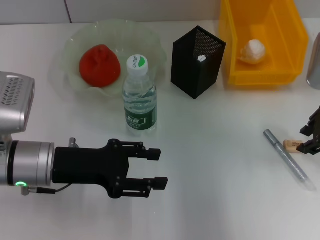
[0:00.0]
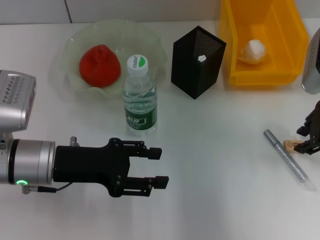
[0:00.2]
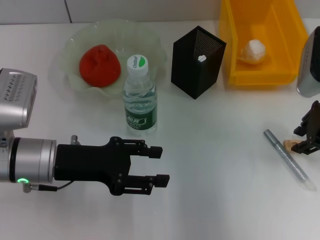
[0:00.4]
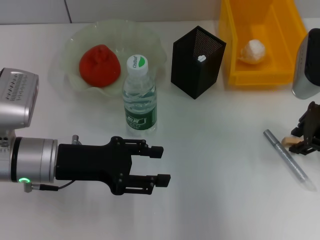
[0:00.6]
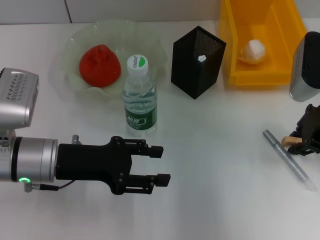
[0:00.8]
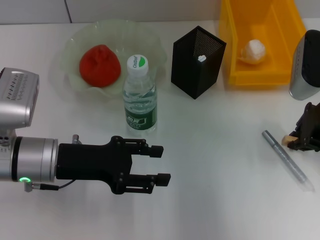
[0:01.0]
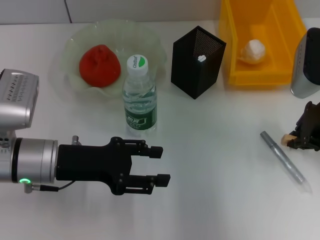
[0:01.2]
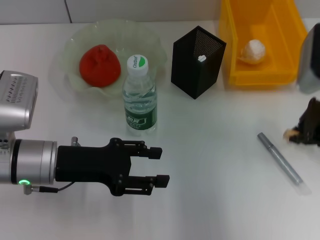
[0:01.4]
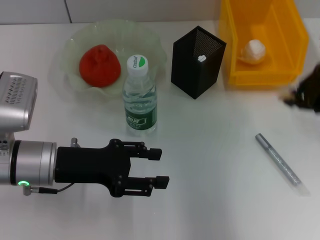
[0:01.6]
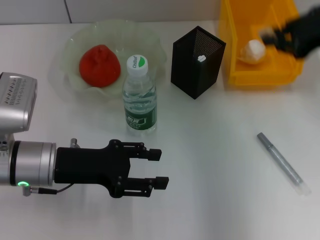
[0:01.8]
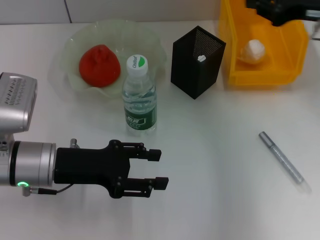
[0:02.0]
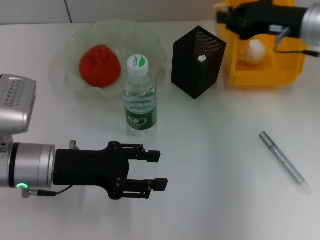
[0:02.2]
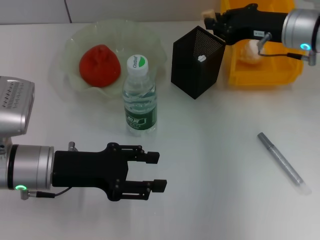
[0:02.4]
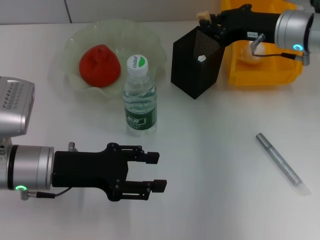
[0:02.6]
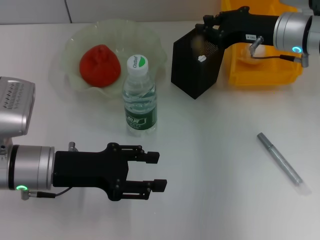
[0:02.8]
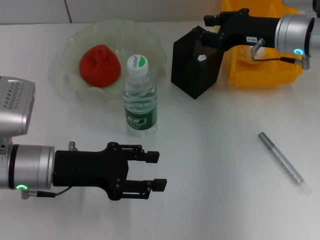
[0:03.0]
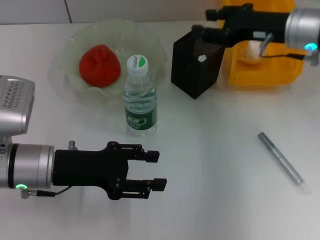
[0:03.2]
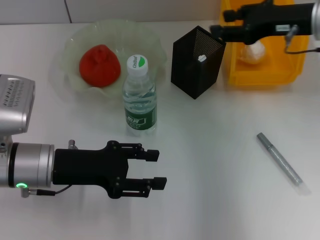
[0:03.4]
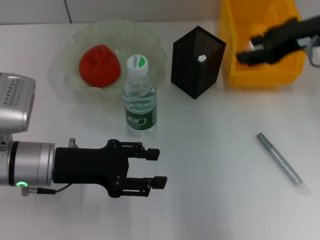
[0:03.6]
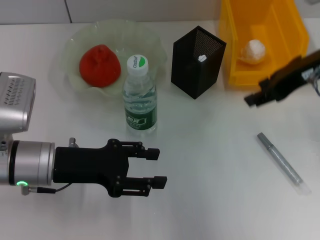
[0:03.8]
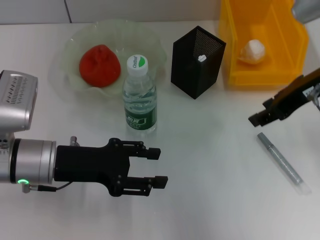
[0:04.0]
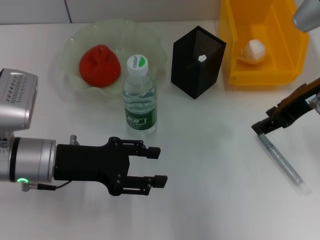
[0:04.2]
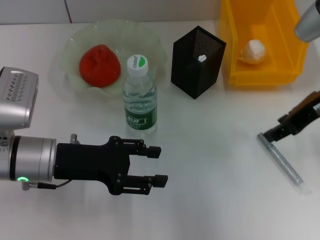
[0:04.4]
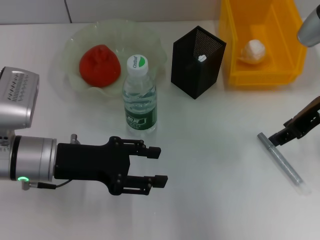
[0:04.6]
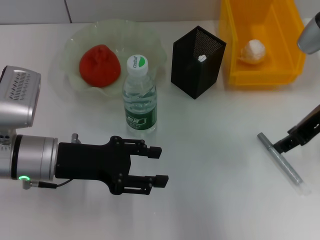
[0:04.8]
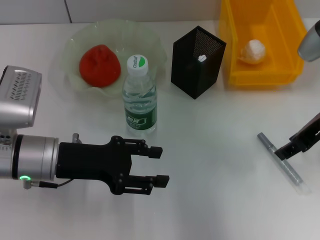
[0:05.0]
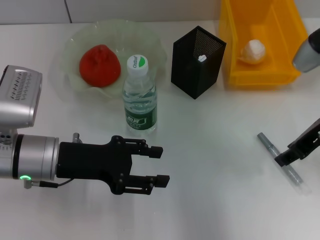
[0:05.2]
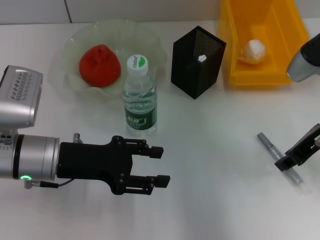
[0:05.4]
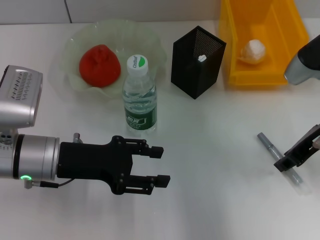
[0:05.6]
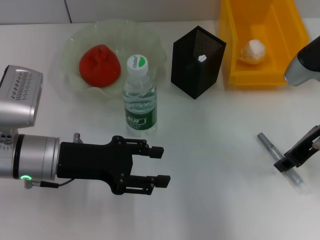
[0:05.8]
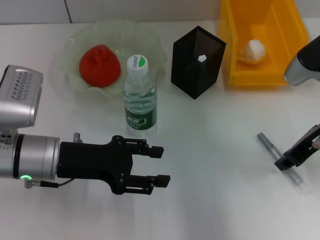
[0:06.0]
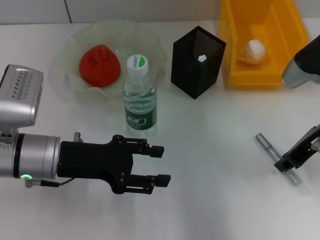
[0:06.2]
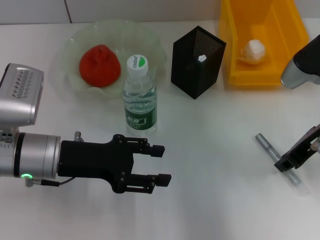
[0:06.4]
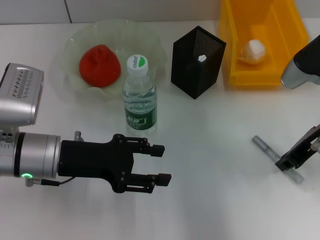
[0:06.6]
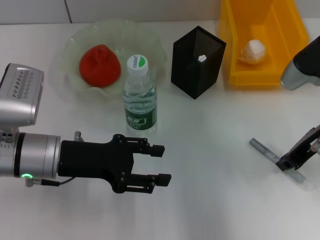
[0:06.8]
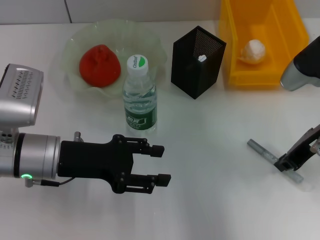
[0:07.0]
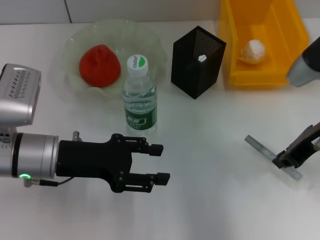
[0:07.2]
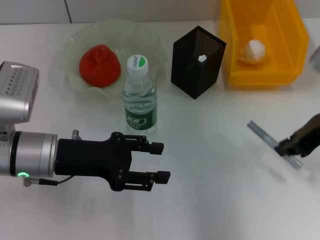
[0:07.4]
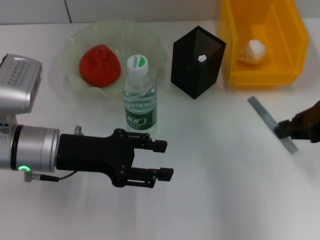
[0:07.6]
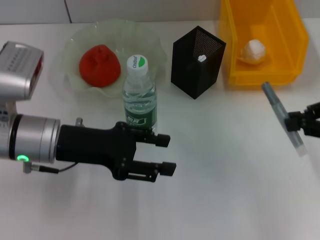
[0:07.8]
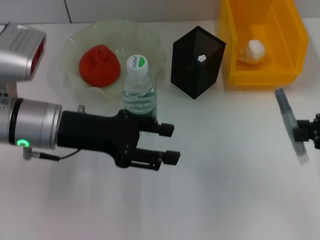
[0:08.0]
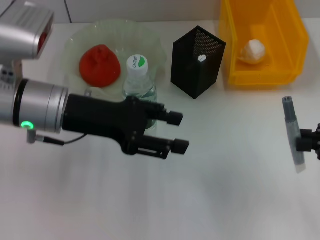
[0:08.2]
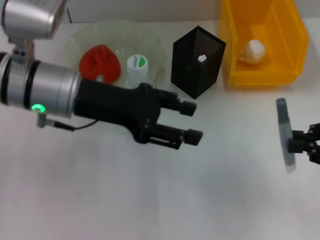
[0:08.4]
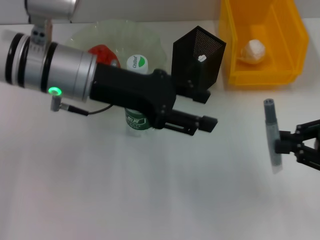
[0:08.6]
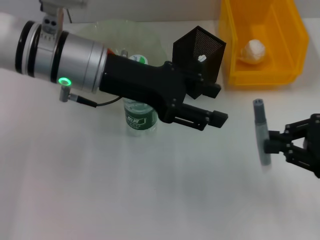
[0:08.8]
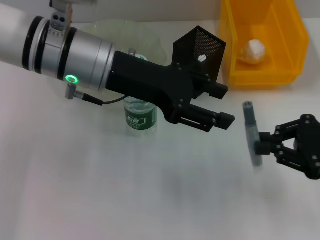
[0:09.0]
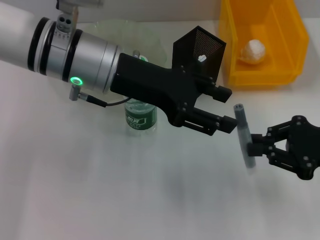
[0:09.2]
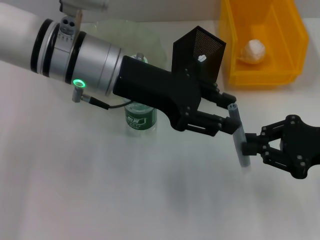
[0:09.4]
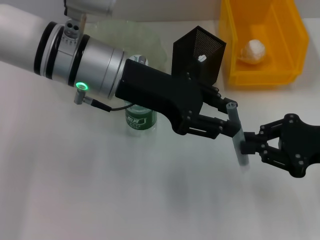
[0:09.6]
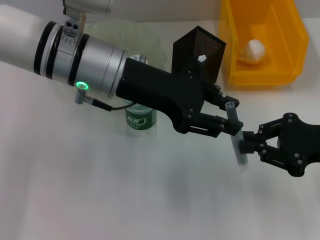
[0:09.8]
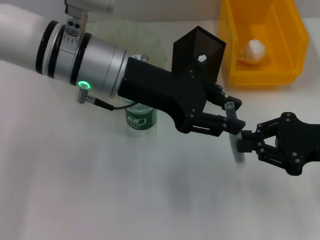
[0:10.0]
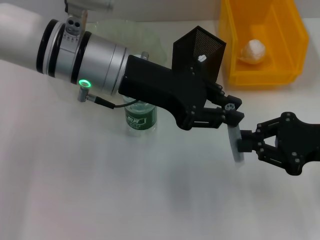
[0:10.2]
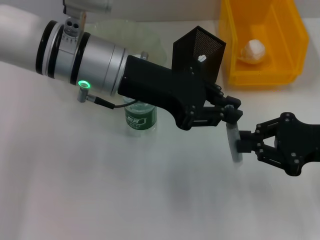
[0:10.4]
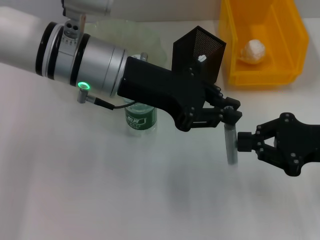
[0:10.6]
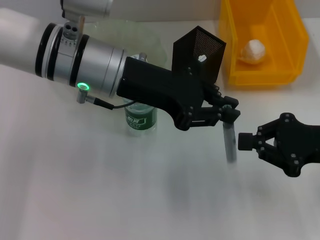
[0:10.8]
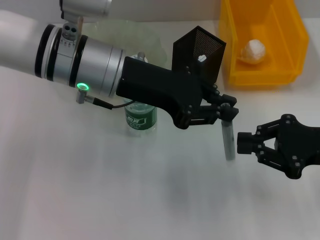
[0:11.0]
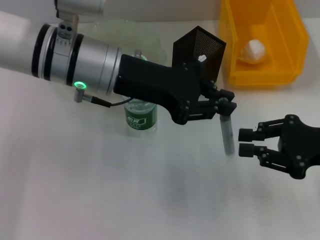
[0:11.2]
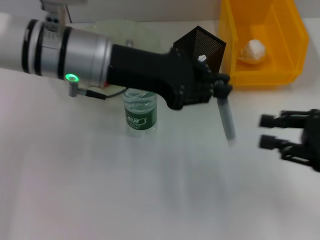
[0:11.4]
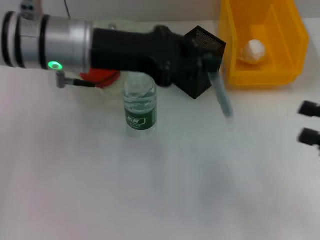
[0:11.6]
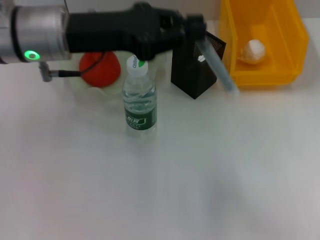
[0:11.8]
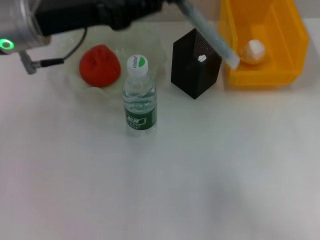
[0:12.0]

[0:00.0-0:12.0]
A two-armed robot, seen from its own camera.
Step, 0:01.2 to 0:03.0: Put the eraser into the pen holder with the right hand.
Step, 0:03.2 to 0:06.8: Grab the gray glue with the right hand.
Step, 0:07.2 to 0:10.6: Pass the gray glue from the right hand to the left hand.
0:00.0 to 0:01.6: The right gripper closes.
0:01.6 to 0:03.0: The right gripper heads forward, to the left and downward, covering approximately 10 cm.
0:03.0 to 0:04.4: The right gripper moves backward and upward, some 10 cm.
0:04.4 to 0:06.0: The right gripper heads downward, covering approximately 5 cm.
0:06.0 to 0:07.6: The right gripper ends up roughly 5 cm from where it was, and closes.
0:07.6 to 0:09.0: The right gripper heads downward, covering about 5 cm; the left gripper travels upward, to the right and forward by roughly 15 cm.
0:09.0 to 0:10.4: The left gripper closes its fingers.
0:10.4 to 0:12.0: The left gripper moves to the left, roughly 10 cm. The right gripper travels backward and to the right by about 10 cm, and opens its fingers.

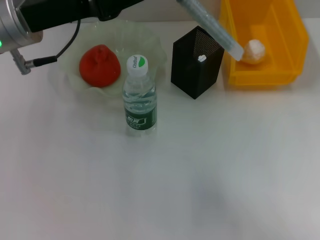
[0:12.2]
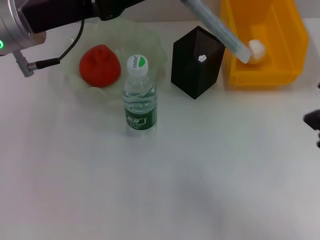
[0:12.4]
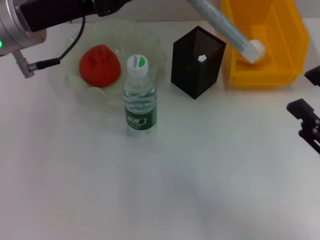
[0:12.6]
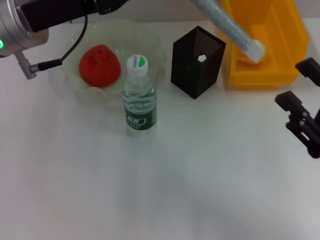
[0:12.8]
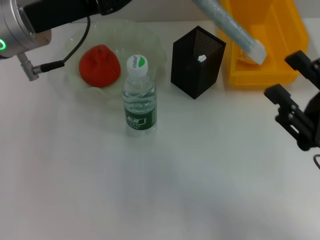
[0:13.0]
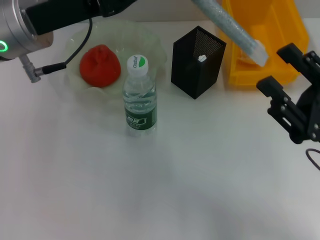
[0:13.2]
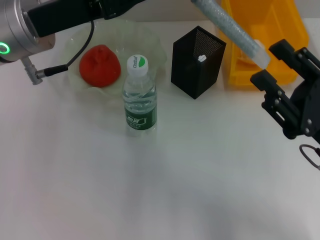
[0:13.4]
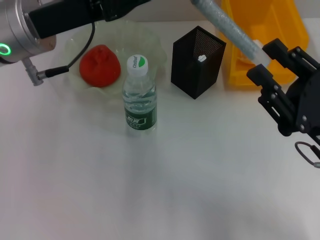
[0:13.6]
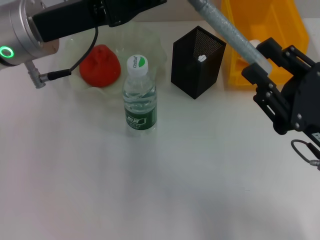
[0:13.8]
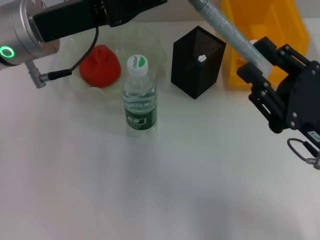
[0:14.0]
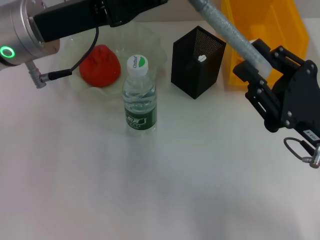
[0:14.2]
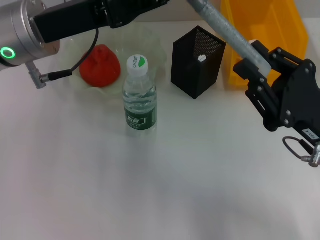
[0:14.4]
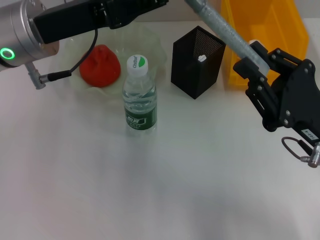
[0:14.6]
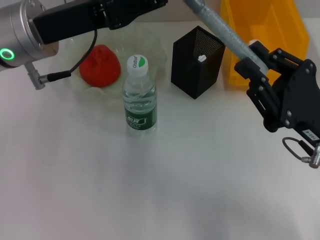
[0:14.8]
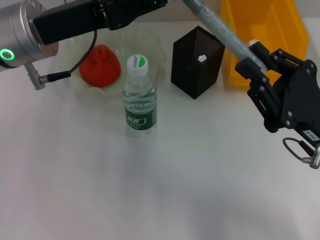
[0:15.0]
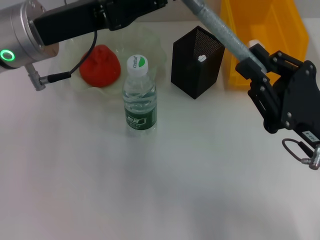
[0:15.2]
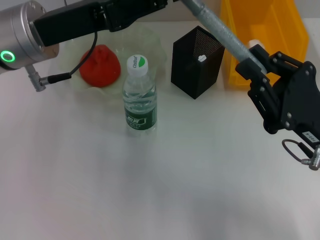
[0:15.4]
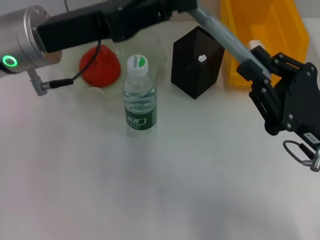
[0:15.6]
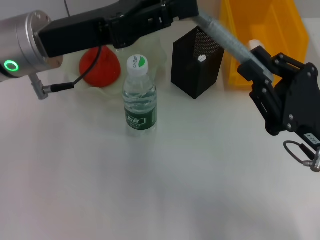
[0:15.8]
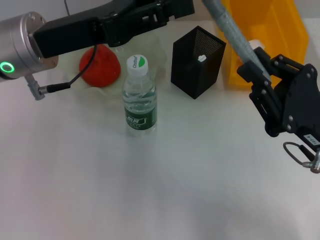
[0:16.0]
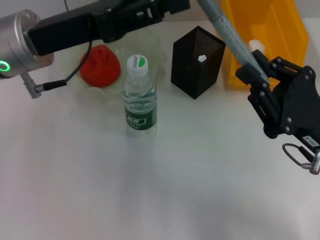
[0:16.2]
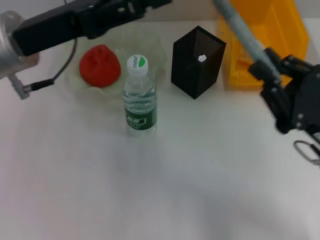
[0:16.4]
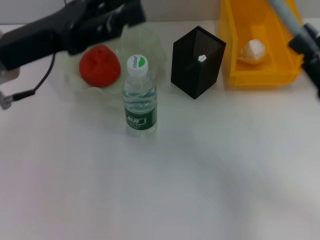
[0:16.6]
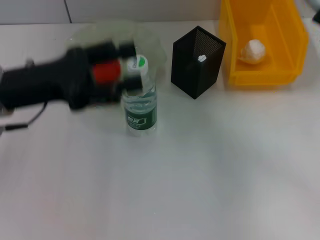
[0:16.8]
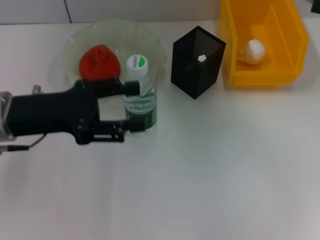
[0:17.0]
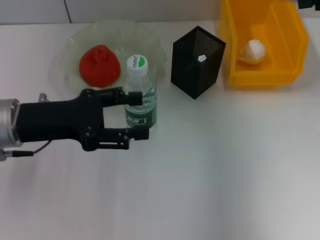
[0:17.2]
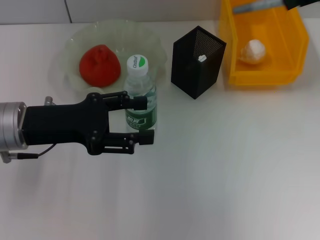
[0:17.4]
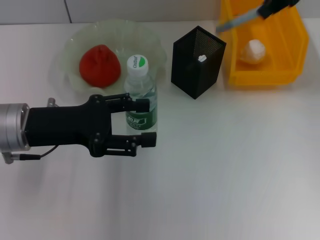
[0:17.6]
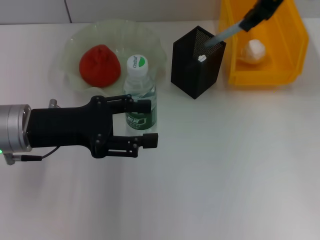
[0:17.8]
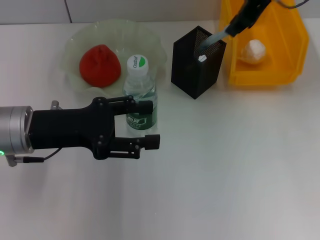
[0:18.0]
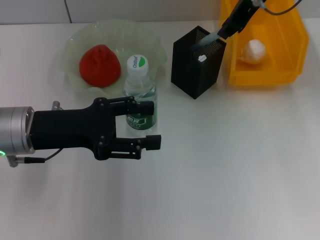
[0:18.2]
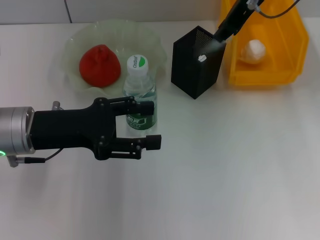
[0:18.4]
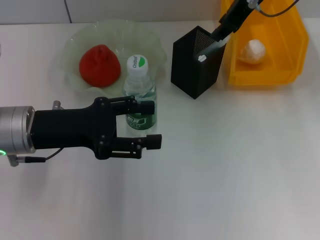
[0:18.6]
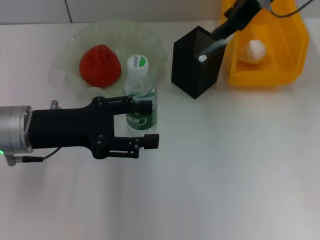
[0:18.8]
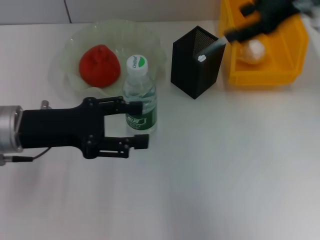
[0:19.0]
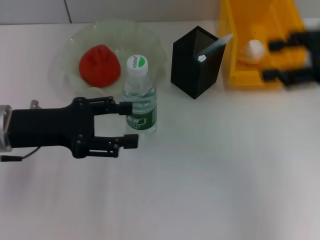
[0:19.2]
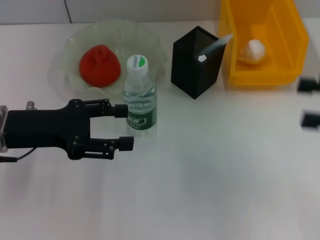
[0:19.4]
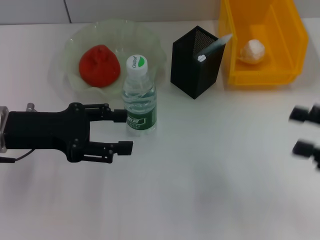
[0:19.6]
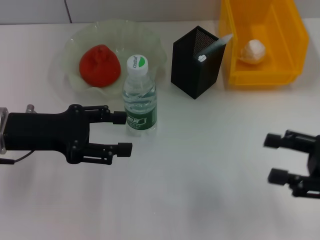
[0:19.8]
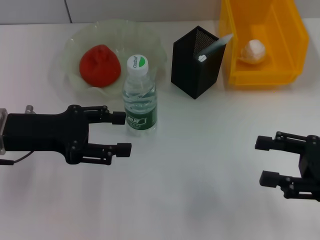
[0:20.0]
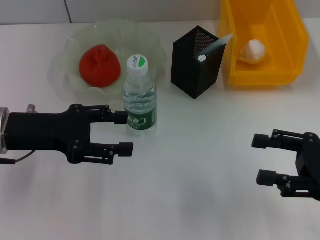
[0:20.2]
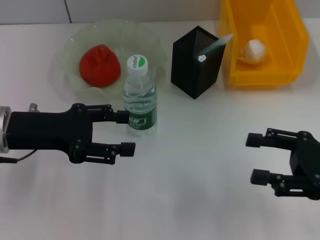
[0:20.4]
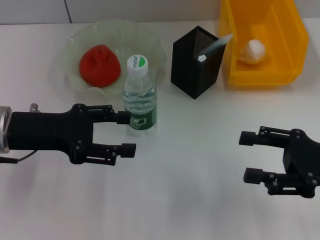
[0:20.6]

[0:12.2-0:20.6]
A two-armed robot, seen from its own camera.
Step, 0:12.2 to 0:16.4: Pass the gray glue from the left hand to the right hand.
Step, 0:16.6 to 0:19.0: Place the gray glue into the pen holder with the right hand.
0:12.2 to 0:13.6: The right gripper moves to the left and forward, some 10 cm.
0:13.6 to 0:15.0: The right gripper closes.
0:15.0 to 0:16.4: The left gripper opens up.
0:16.4 to 0:17.8: The right gripper goes some 30 cm upward and forward. The left gripper heads downward, covering some 5 cm.
0:17.8 to 0:19.2: The right gripper moves backward, to the right and downward, roughly 20 cm, and opens up.
0:19.2 to 0:20.6: The right gripper travels downward and backward by approximately 15 cm.
